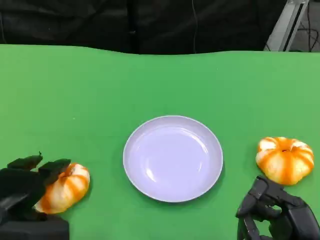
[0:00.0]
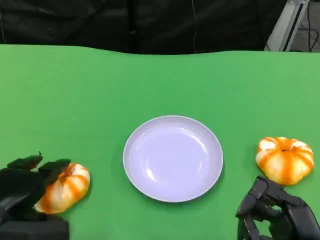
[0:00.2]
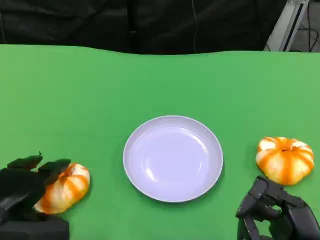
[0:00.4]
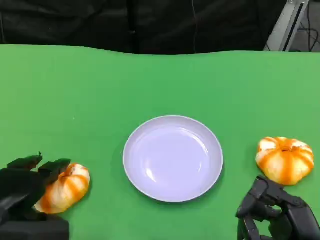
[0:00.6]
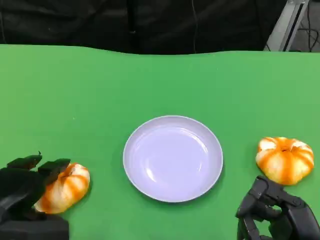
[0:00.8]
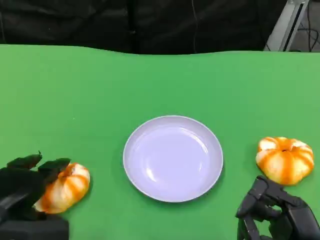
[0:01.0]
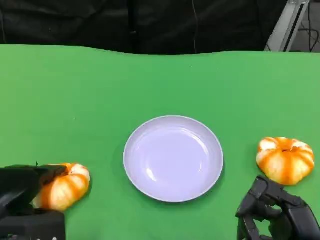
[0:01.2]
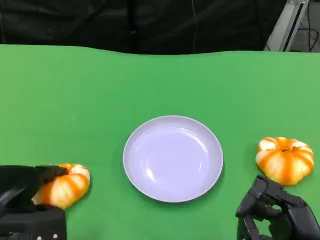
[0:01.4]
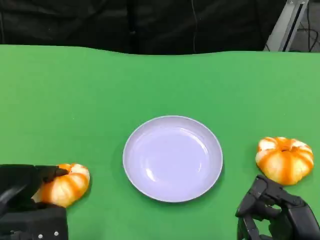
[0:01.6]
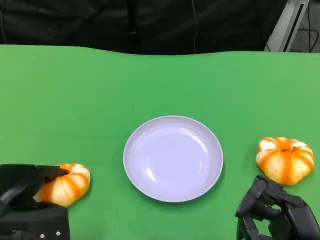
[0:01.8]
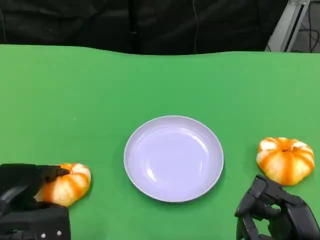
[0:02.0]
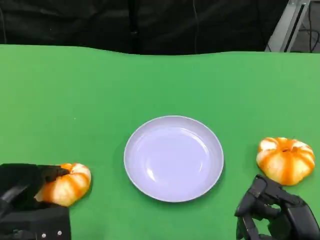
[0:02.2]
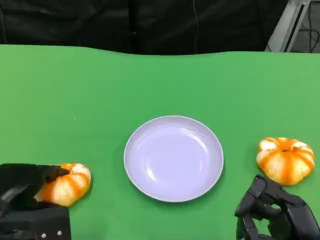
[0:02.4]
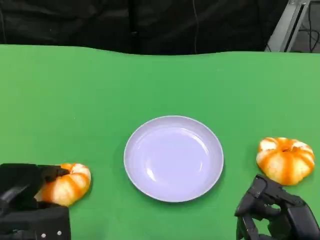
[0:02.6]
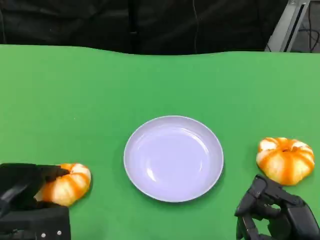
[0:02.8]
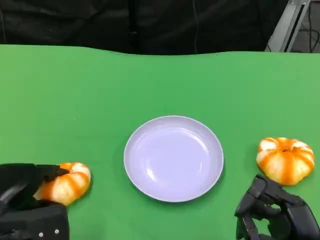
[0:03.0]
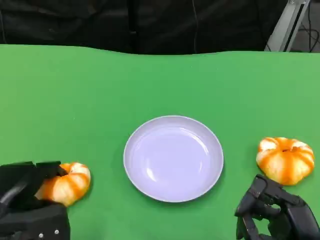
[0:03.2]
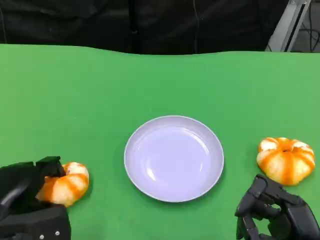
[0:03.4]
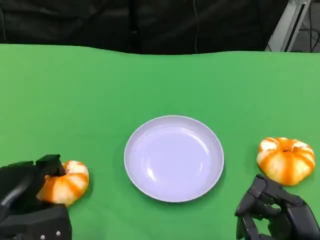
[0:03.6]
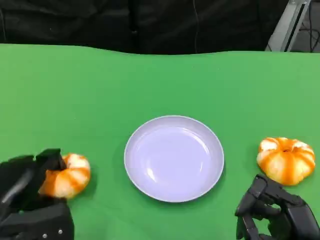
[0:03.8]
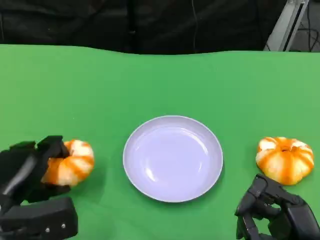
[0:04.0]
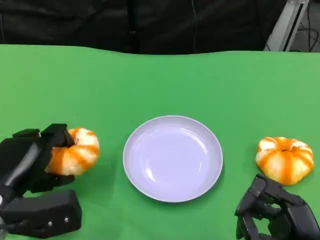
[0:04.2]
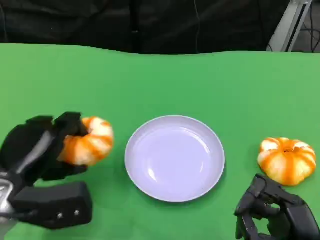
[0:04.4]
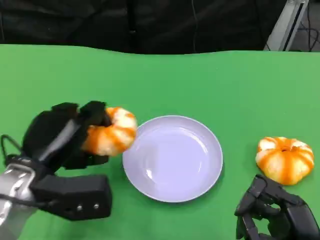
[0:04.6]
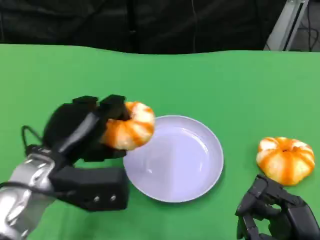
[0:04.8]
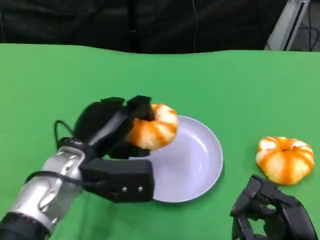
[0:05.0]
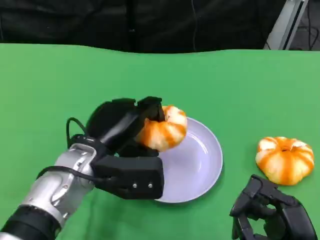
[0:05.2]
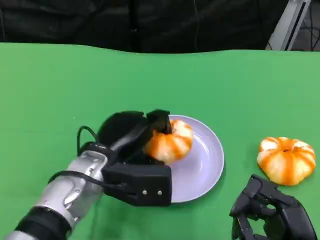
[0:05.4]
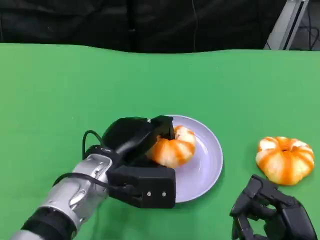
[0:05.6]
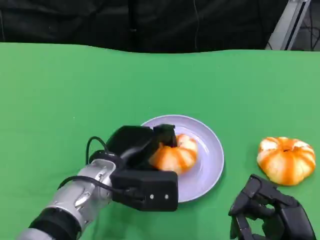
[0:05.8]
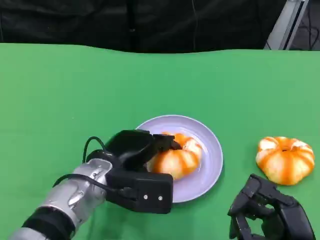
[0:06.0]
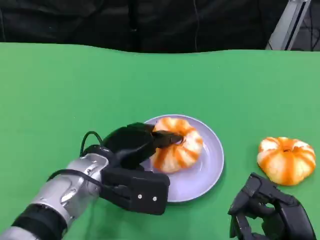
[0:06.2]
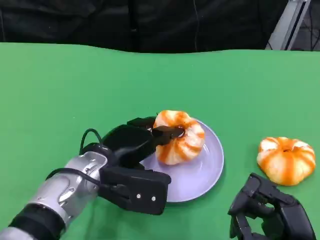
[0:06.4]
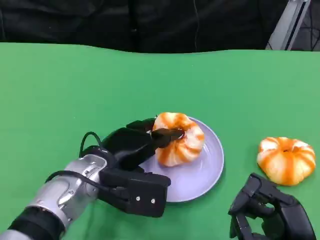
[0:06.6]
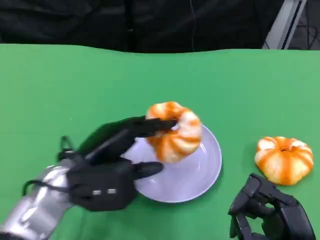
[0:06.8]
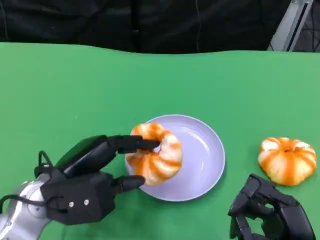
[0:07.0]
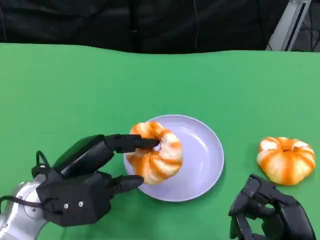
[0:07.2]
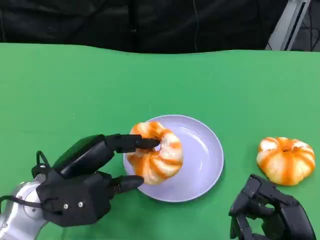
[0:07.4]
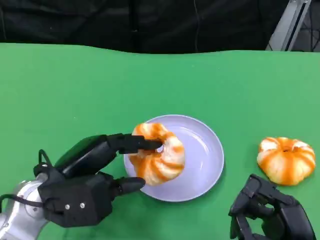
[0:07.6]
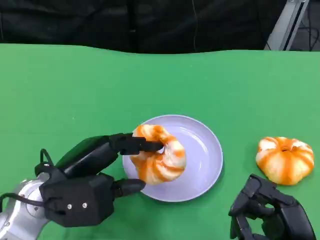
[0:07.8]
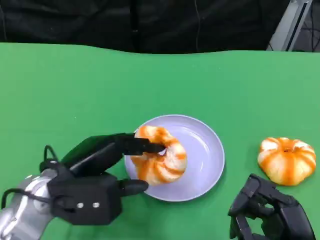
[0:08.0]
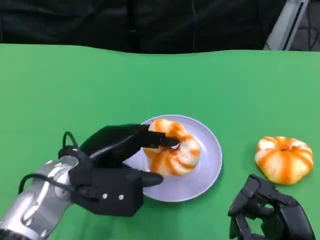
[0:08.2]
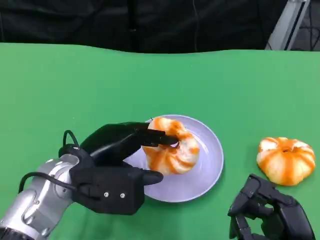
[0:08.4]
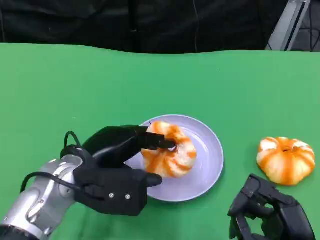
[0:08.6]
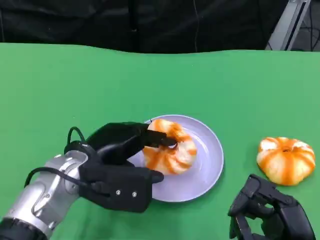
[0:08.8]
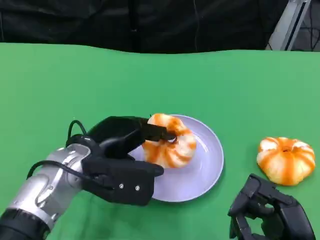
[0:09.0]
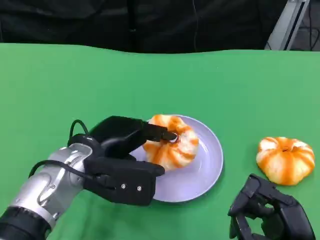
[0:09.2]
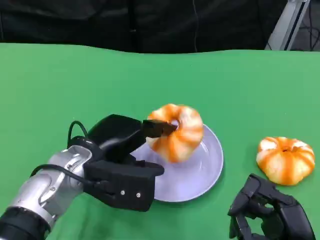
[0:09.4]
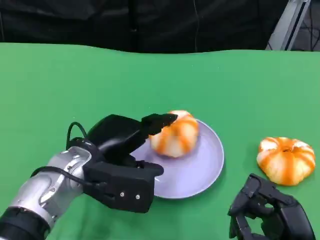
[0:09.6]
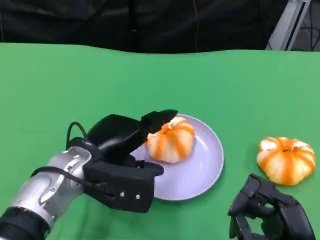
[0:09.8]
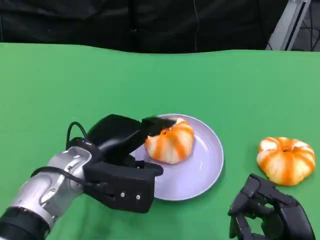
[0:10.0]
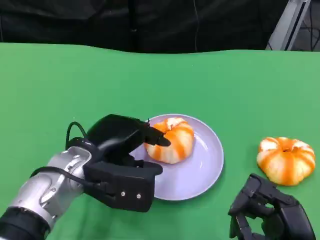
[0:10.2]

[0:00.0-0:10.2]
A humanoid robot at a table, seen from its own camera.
Task of the whole recording: Grasp the bread from the table and place it into the plate.
0:00.0 to 0:01.4: The hands stay close to where they were, moving slightly.
0:01.4 to 0:03.0: The two hands keep their place.
0:03.0 to 0:04.4: The left hand goes approximately 5 cm upward.
0:04.4 to 0:05.8: The left hand heads to the right, covering some 10 cm.
0:05.8 to 0:07.2: The left hand travels to the left by approximately 10 cm.
0:07.2 to 0:08.8: The left hand ends up some 5 cm from where it was.
0:08.8 to 0:10.2: There are only small adjustments of the hands.

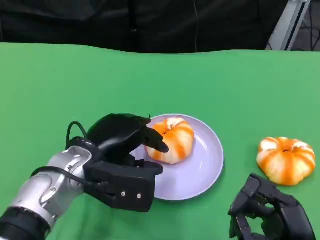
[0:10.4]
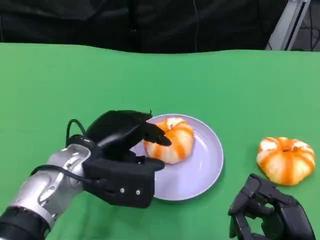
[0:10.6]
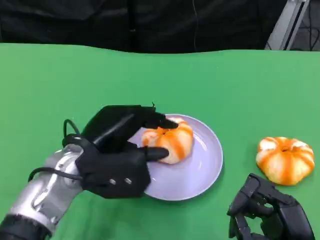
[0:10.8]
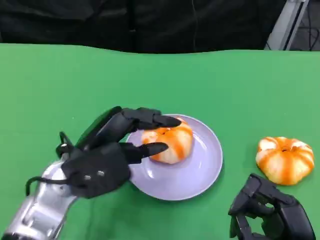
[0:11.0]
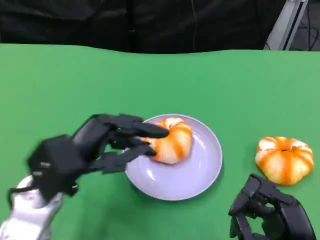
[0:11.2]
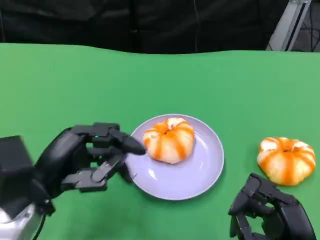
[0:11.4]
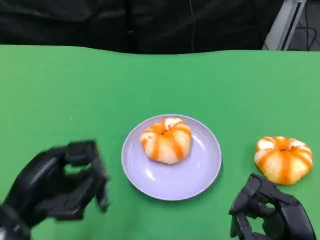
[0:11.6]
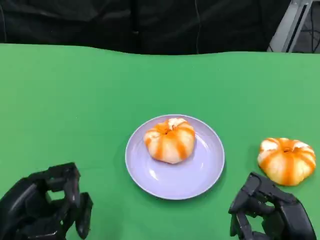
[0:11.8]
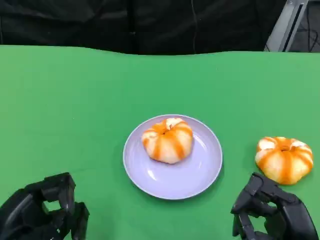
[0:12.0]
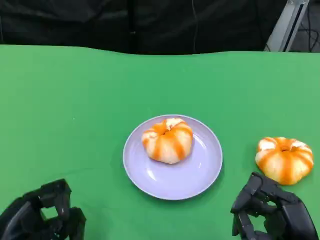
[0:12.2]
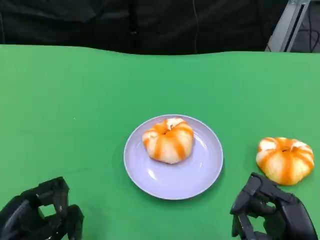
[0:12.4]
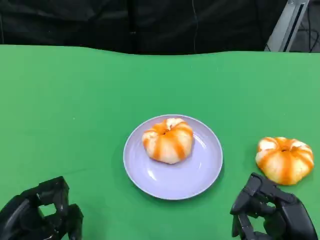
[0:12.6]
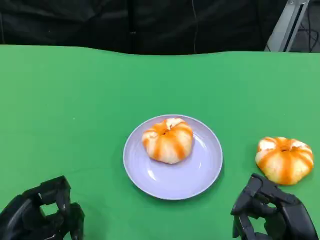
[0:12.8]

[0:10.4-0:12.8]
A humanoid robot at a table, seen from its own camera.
Task of the whole recording: Grasp the bread from the table and place it into the plate.
0:10.4 to 0:11.6: The left hand moves to the left and backward, some 15 cm.
0:11.6 to 0:12.8: The left hand shifts by about 5 cm.

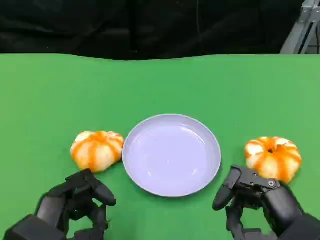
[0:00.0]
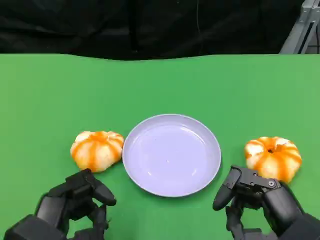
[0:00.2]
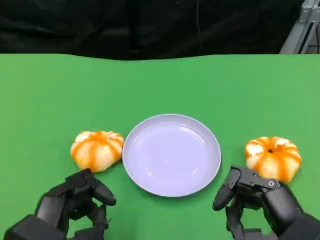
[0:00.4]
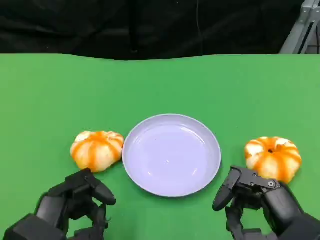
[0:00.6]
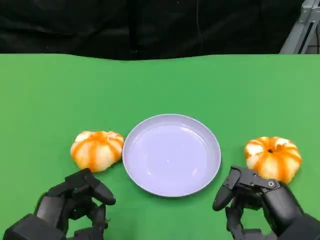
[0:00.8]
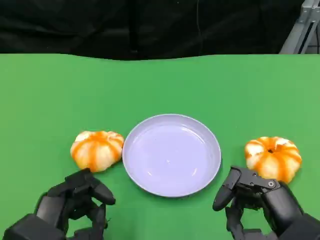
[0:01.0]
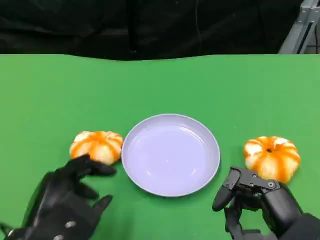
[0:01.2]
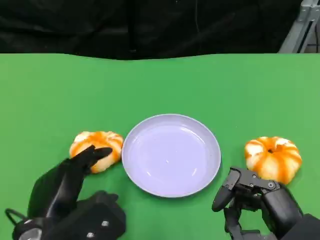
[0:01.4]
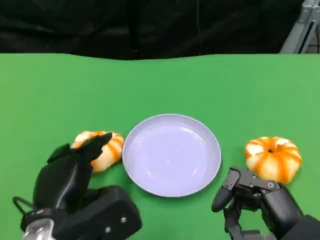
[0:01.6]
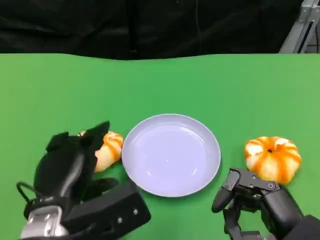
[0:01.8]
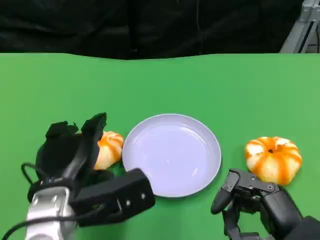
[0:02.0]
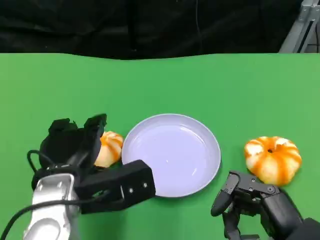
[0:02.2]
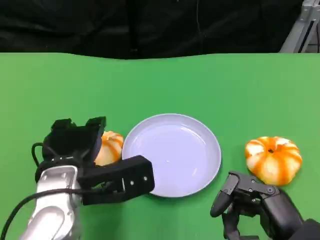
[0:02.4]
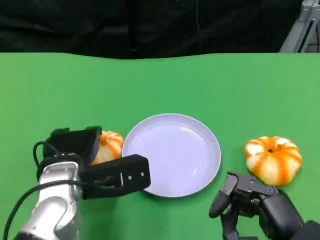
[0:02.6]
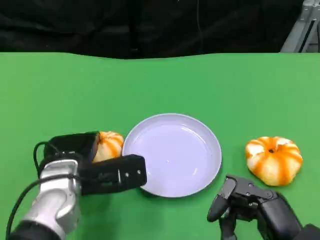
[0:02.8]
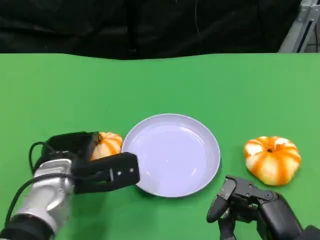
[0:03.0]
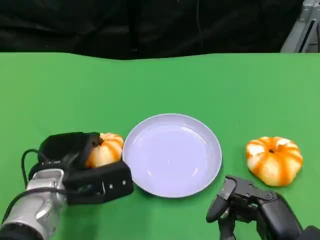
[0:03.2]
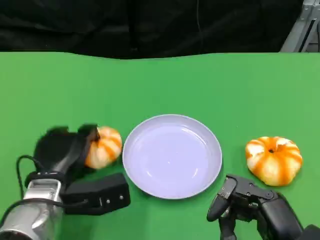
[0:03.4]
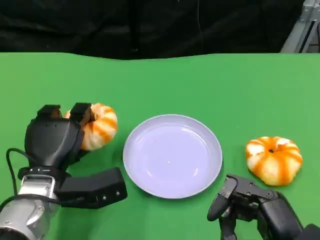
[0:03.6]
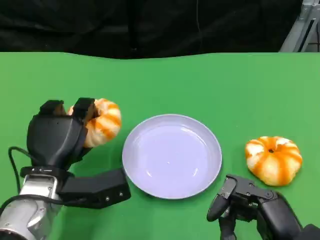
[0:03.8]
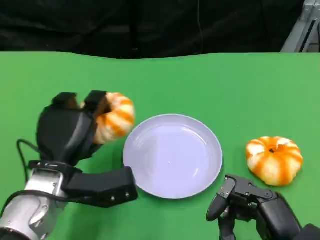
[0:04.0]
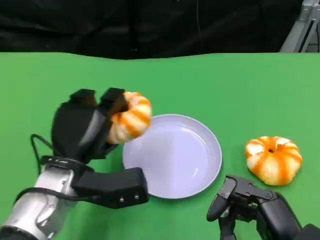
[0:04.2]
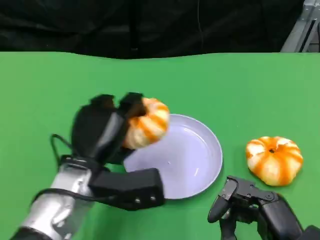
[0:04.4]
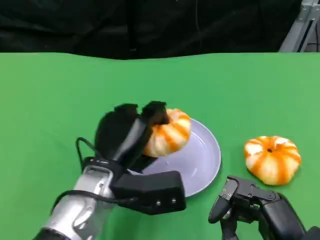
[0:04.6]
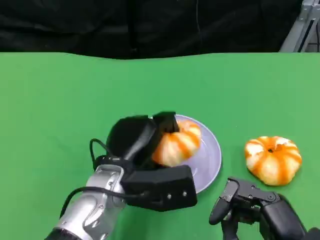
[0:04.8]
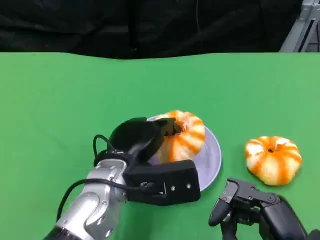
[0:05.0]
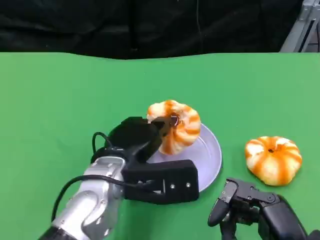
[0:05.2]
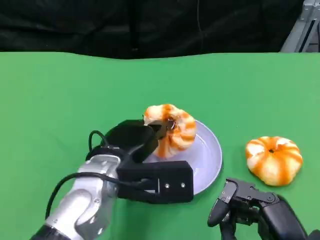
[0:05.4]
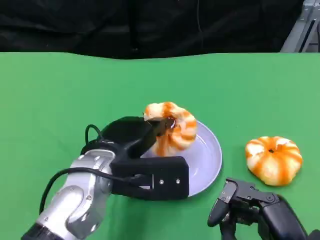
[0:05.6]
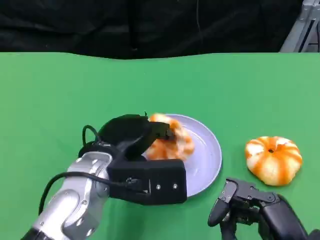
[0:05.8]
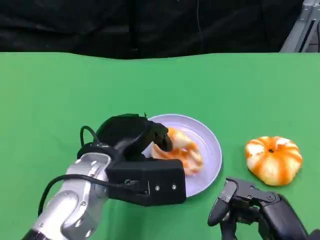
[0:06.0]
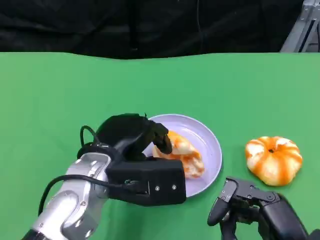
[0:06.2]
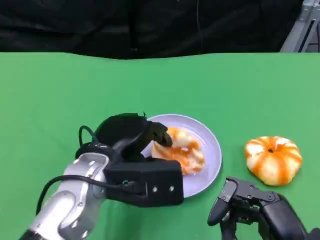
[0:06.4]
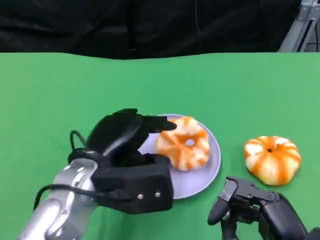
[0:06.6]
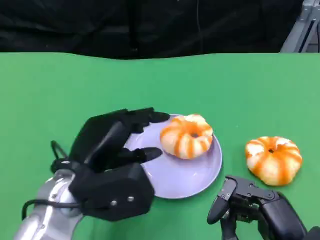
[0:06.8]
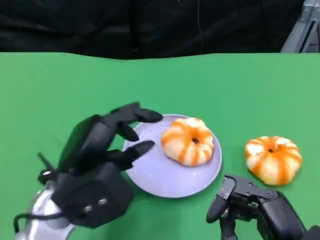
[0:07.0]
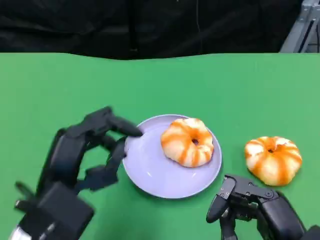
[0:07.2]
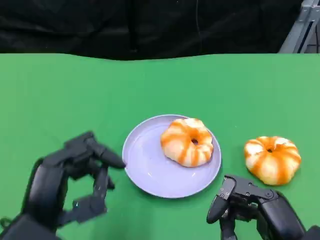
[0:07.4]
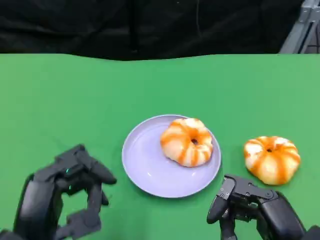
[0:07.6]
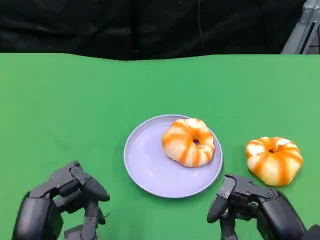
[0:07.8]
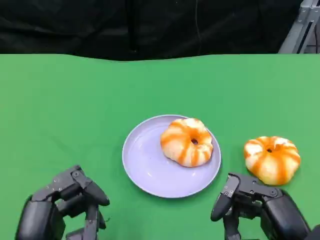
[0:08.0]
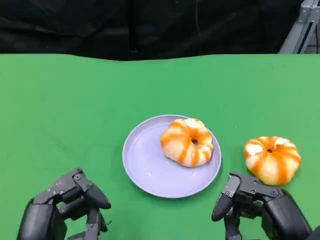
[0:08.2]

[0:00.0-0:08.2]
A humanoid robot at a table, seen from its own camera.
Task of the whole recording: Grasp the bread from the table and place it into the plate.
0:00.0 to 0:01.6: The left hand moves forward, about 5 cm.
0:01.6 to 0:03.2: The left hand heads forward, covering roughly 10 cm.
0:03.2 to 0:05.0: The left hand shifts about 10 cm to the right and upward.
0:05.0 to 0:06.6: The hands stay close to where they were, moving slightly.
0:06.6 to 0:08.2: The left hand is displaced backward and to the left by approximately 15 cm.

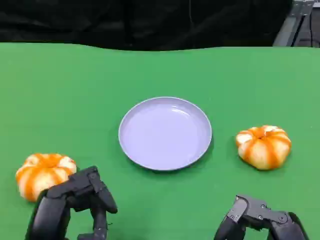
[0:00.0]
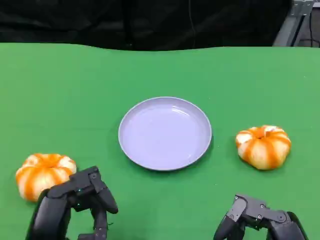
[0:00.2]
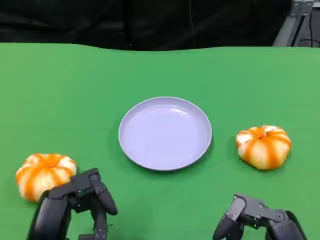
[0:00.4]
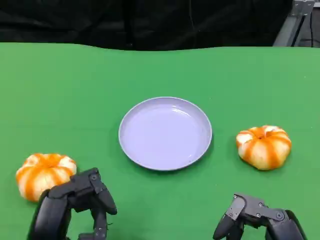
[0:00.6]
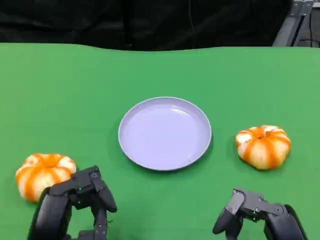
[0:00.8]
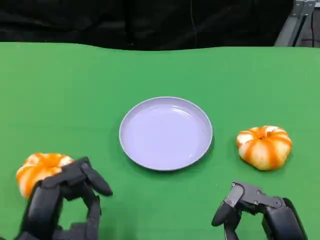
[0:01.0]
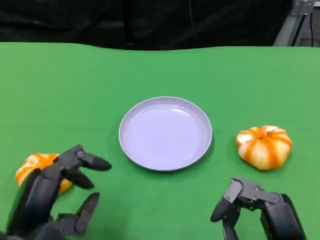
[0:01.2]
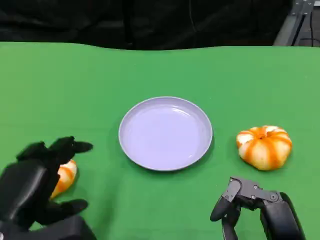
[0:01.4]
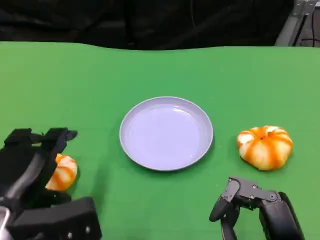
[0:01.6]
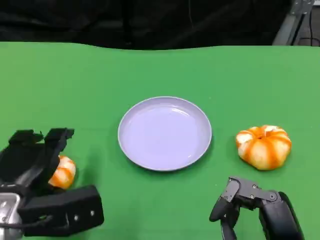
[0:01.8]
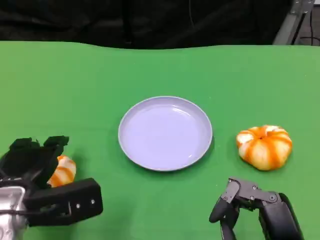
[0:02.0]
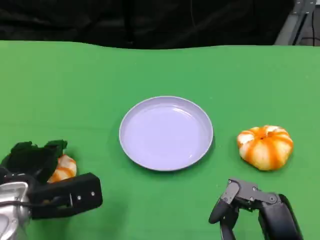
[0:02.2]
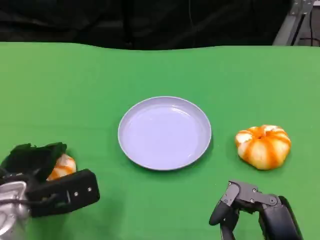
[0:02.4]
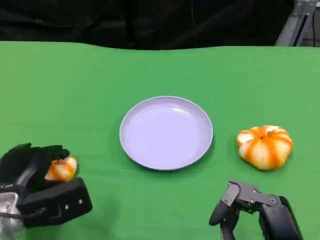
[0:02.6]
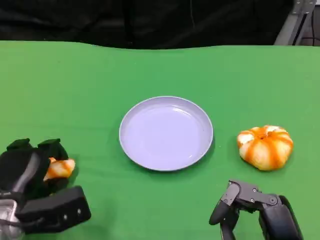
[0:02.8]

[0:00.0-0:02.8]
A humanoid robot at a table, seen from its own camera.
Task of the whole recording: Grasp the bread from the table and place it into the plate.
0:00.0 to 0:01.4: The left hand moves roughly 5 cm.
0:01.4 to 0:02.8: The left hand moves downward and forward, roughly 10 cm.
